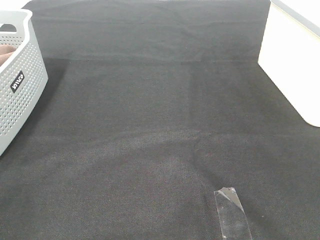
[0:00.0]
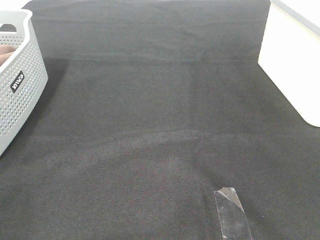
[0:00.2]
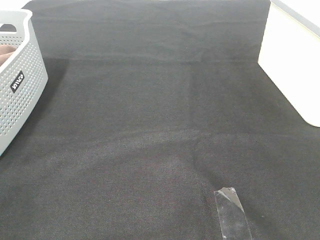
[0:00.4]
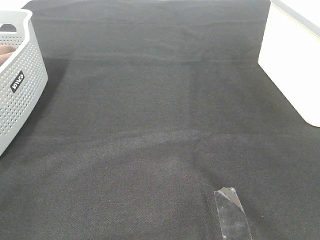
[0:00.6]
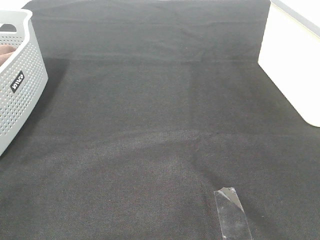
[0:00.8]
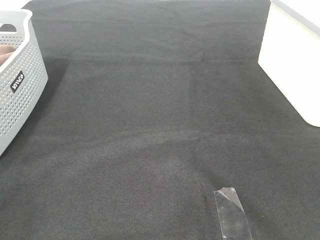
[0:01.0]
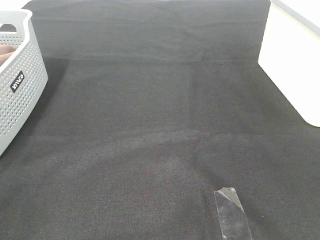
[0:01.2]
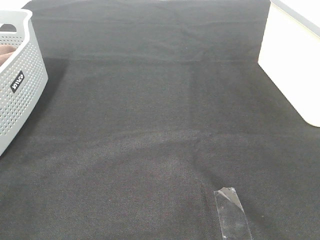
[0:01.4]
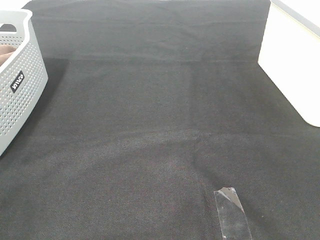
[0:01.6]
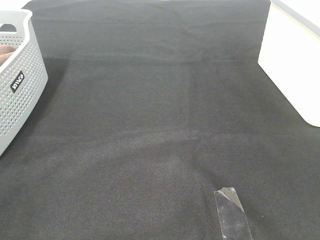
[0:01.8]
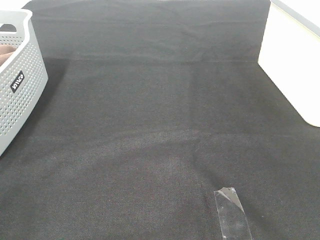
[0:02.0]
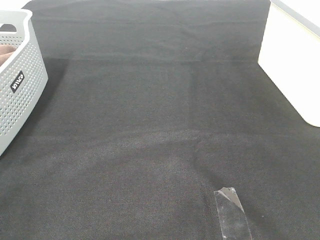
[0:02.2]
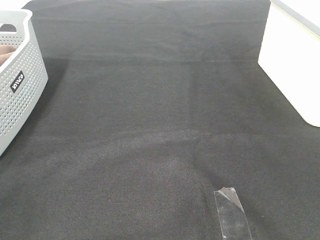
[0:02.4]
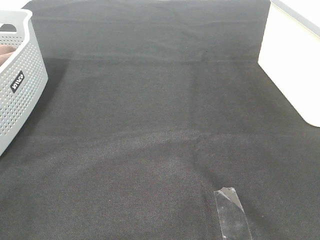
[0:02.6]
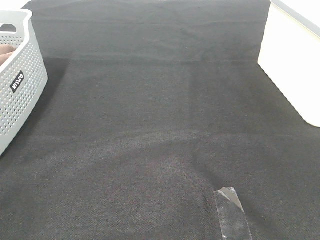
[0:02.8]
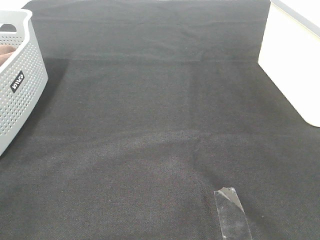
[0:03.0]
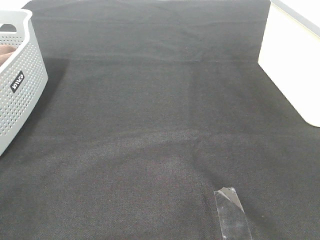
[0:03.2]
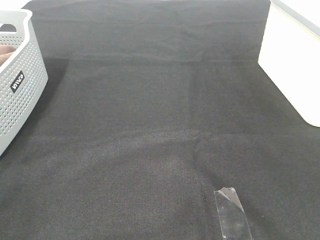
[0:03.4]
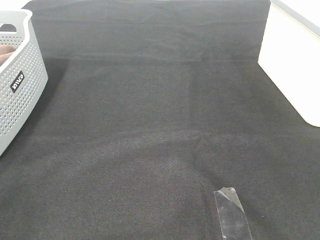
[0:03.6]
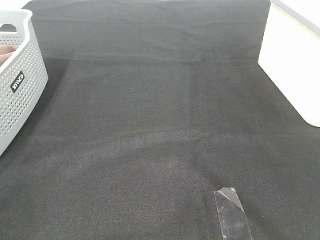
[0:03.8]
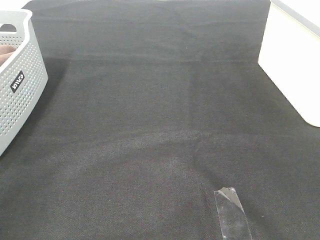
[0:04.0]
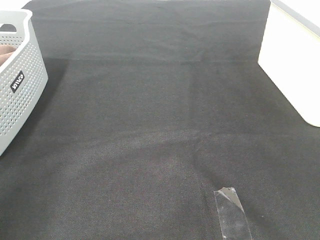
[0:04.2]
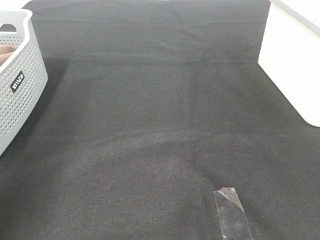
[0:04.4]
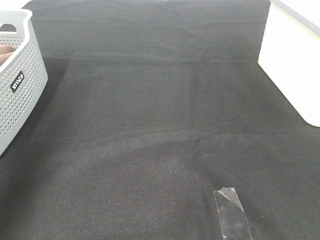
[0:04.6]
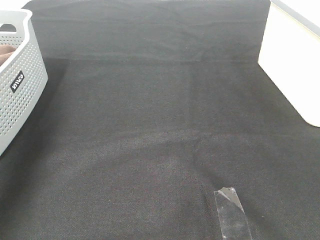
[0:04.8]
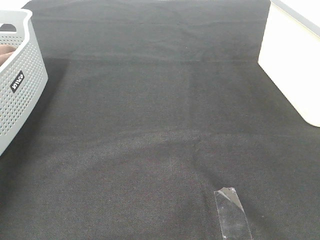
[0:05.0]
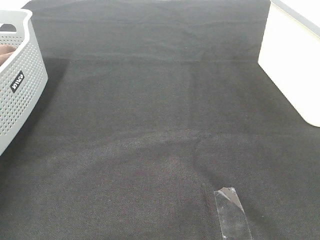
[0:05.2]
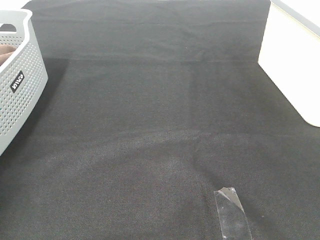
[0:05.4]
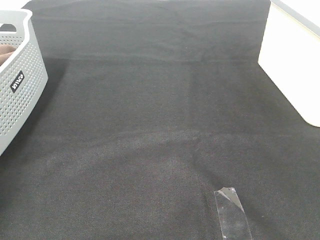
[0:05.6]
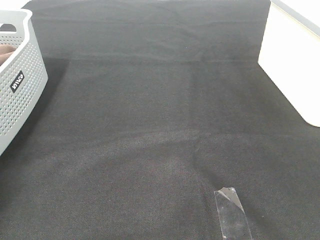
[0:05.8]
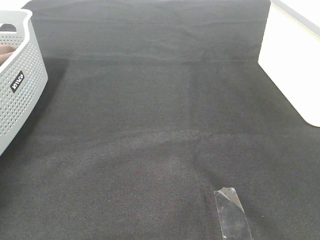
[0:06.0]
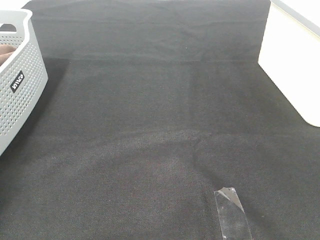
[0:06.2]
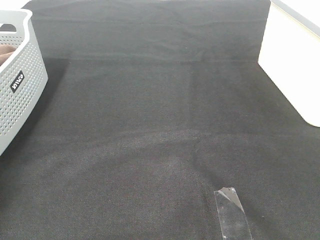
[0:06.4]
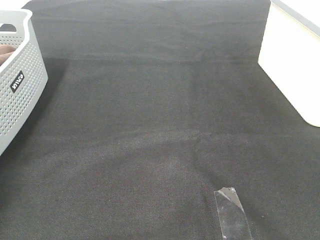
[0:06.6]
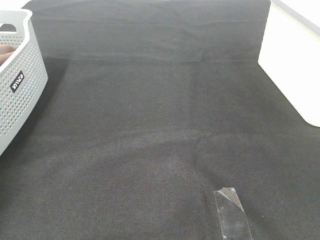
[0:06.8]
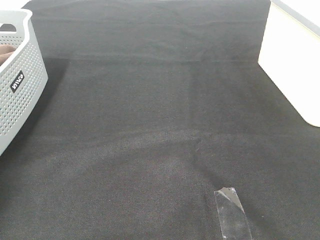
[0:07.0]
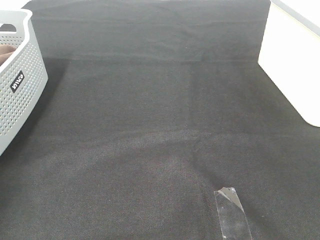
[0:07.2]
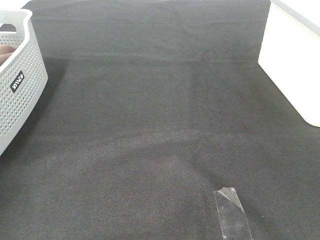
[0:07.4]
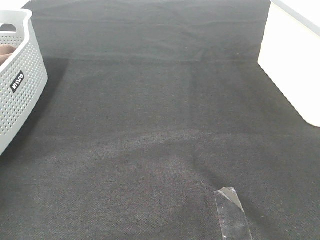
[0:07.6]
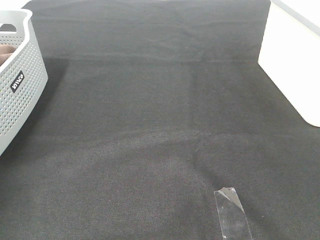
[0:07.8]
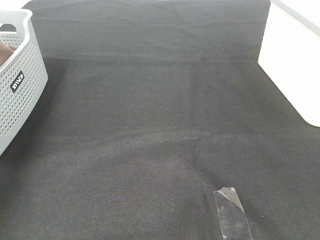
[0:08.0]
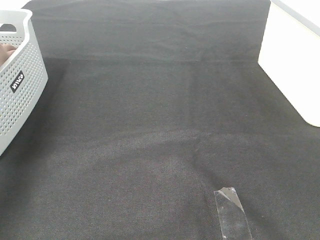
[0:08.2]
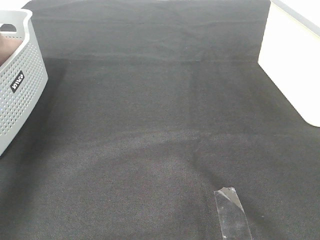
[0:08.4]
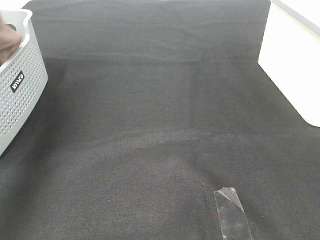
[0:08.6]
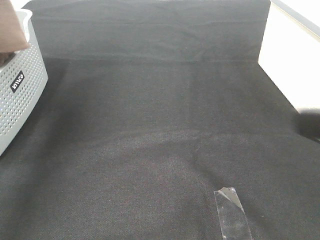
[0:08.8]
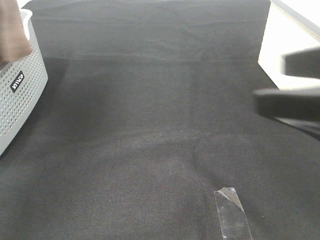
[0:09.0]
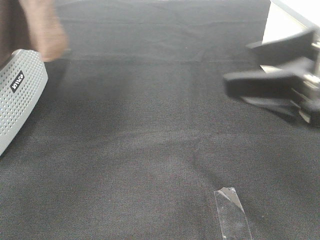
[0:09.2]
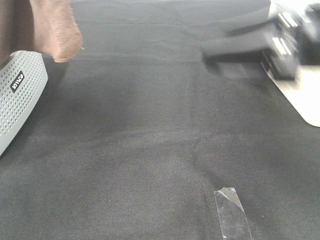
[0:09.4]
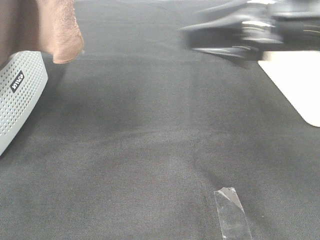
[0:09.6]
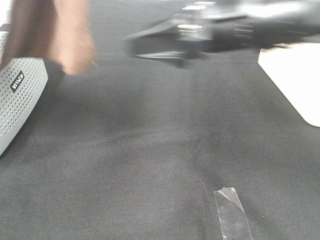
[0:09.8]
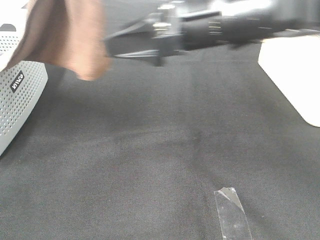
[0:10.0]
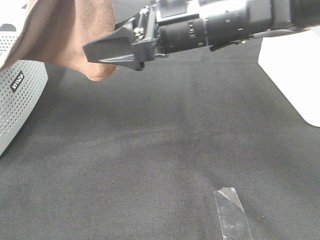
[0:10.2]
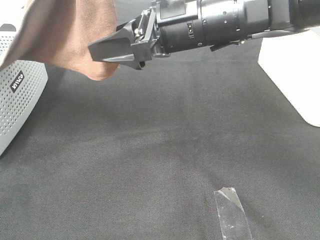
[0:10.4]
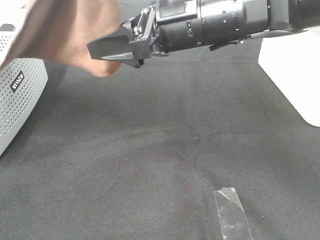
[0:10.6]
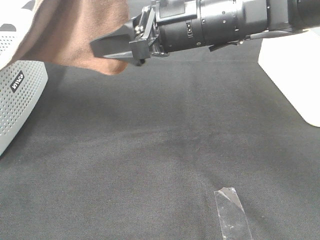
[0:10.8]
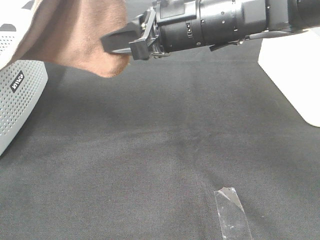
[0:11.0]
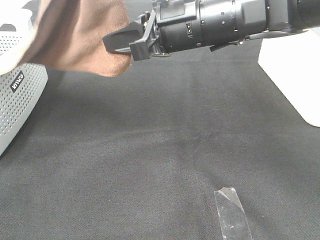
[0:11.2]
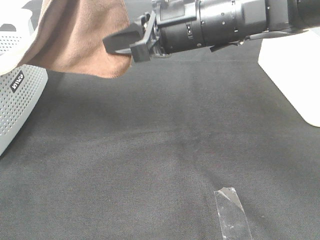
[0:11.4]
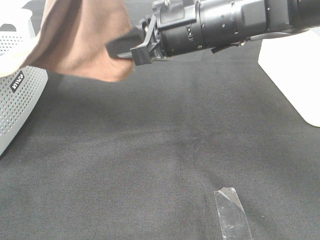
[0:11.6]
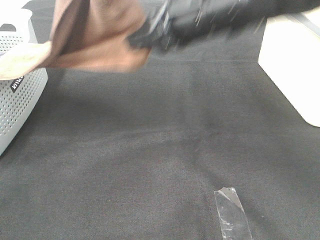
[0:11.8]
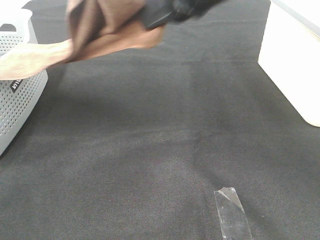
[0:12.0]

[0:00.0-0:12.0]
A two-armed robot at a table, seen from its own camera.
Task of the whole recording: Remove the towel and place it.
Step, 0:08.2 to 0:11.8: Right hand: grab a corner of the brown towel and straighten it.
0:00.0 to 0:03.0: Both grippers stay about where they are.
0:03.0 to 0:04.4: The left gripper shifts roughly 20 cm forward and upward.
0:04.4 to 0:06.0: The left gripper moves forward, downward and to the left, roughly 35 cm.
0:07.6 to 0:09.0: The right gripper shifts some 15 cm forward and to the left, while the left gripper is displaced to the right, upward and backward by roughly 25 cm.
0:09.0 to 0:10.4: The right gripper moves forward and to the left, approximately 25 cm, while the left gripper shifts approximately 10 cm to the right.
0:10.4 to 0:12.0: The right gripper is displaced upward by roughly 10 cm, and closes its fingers.

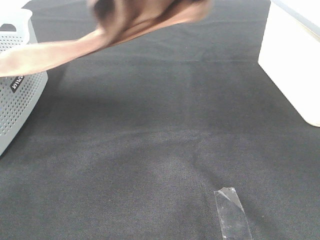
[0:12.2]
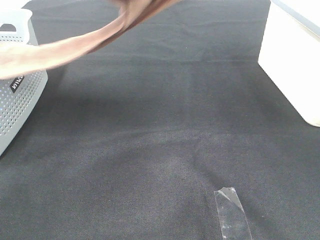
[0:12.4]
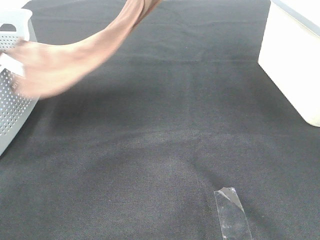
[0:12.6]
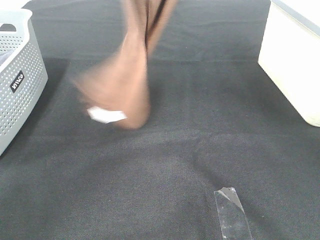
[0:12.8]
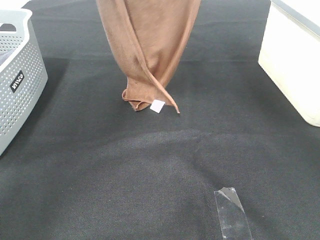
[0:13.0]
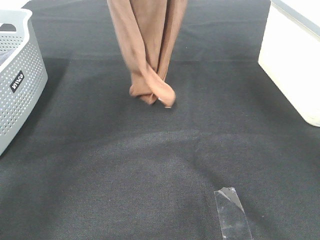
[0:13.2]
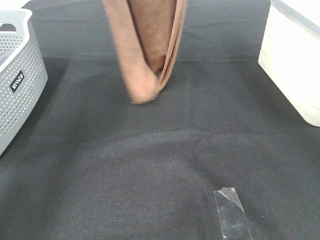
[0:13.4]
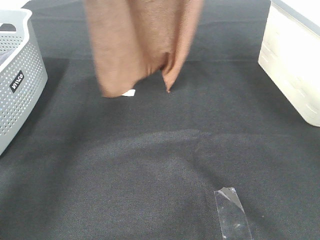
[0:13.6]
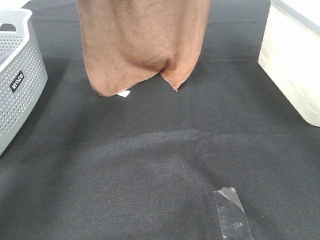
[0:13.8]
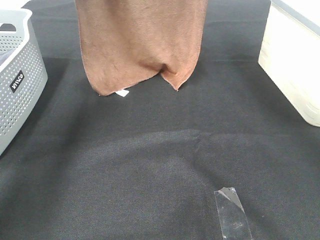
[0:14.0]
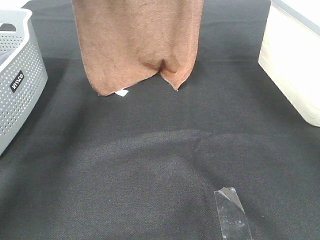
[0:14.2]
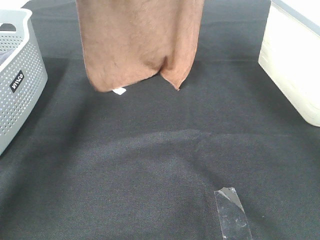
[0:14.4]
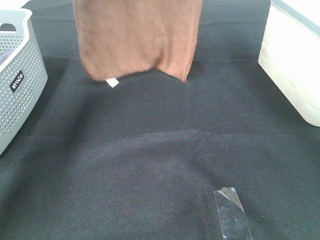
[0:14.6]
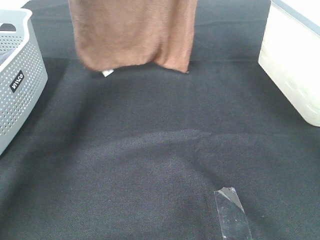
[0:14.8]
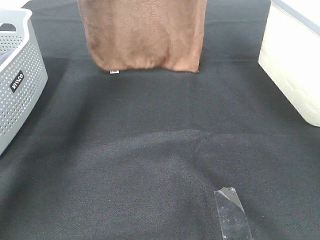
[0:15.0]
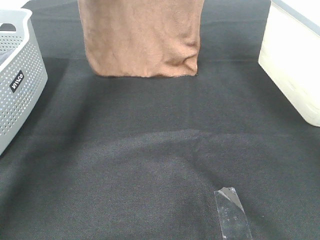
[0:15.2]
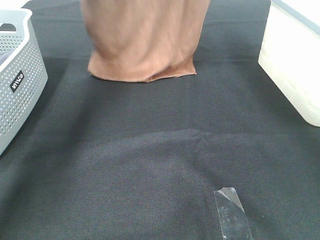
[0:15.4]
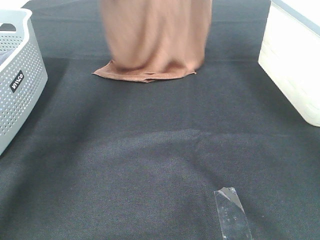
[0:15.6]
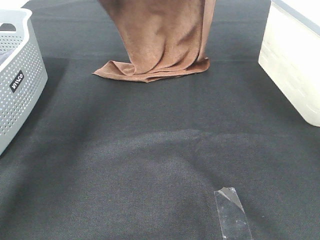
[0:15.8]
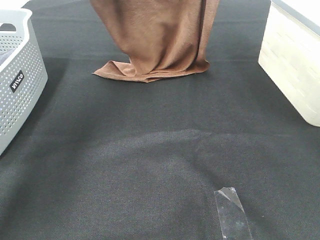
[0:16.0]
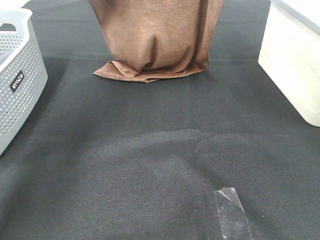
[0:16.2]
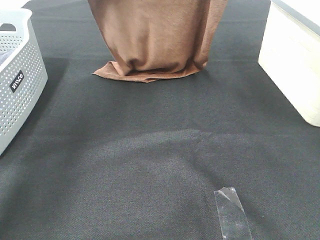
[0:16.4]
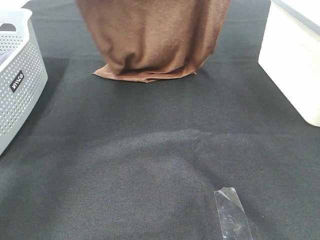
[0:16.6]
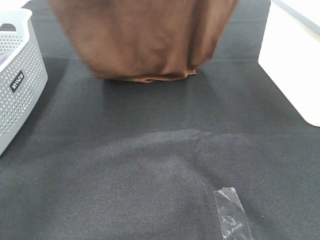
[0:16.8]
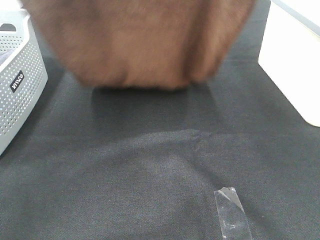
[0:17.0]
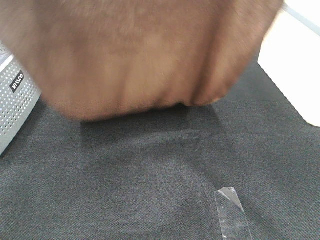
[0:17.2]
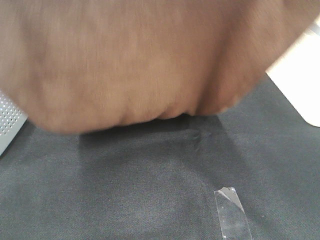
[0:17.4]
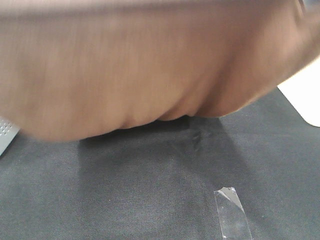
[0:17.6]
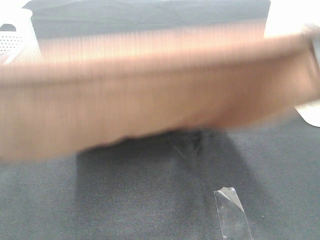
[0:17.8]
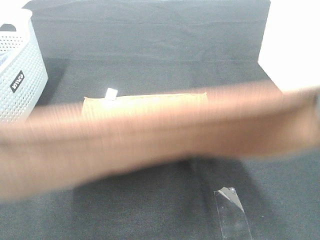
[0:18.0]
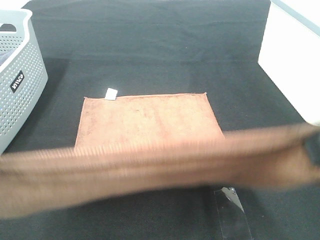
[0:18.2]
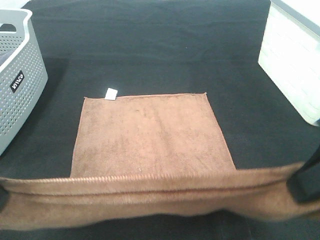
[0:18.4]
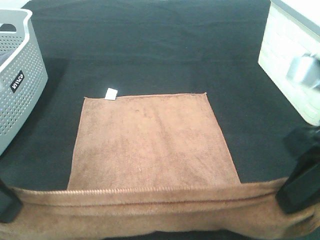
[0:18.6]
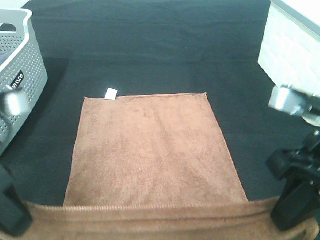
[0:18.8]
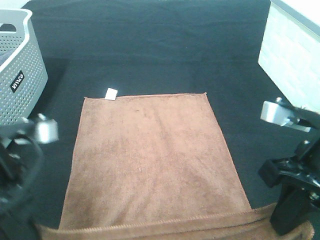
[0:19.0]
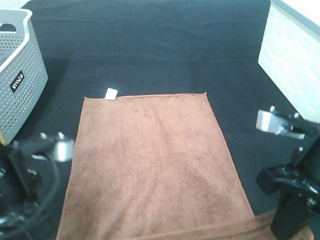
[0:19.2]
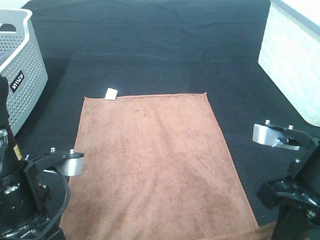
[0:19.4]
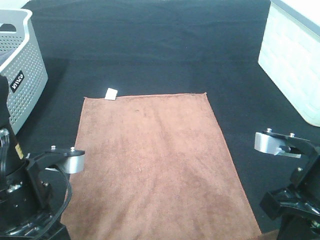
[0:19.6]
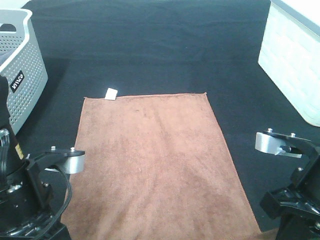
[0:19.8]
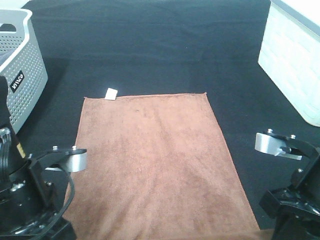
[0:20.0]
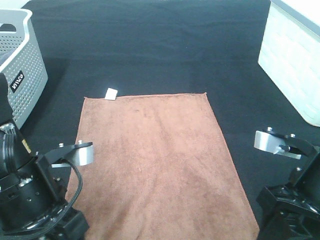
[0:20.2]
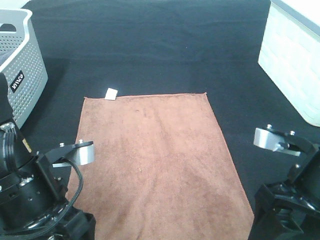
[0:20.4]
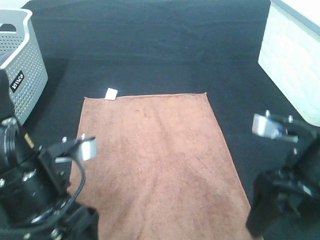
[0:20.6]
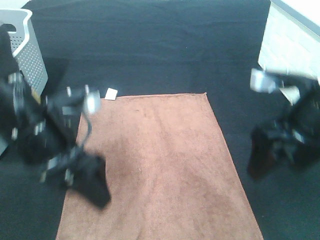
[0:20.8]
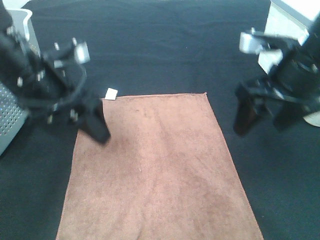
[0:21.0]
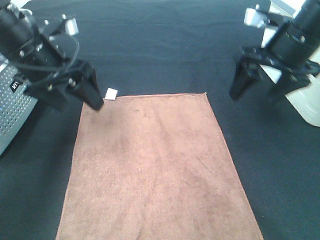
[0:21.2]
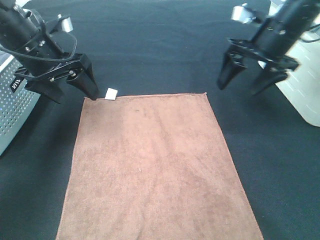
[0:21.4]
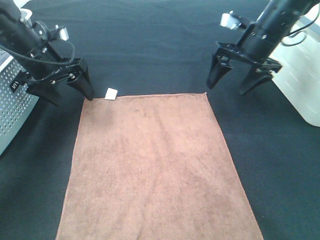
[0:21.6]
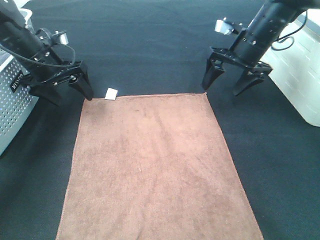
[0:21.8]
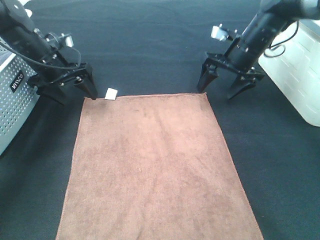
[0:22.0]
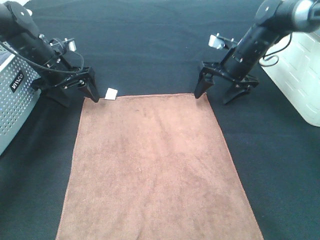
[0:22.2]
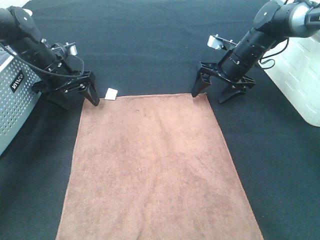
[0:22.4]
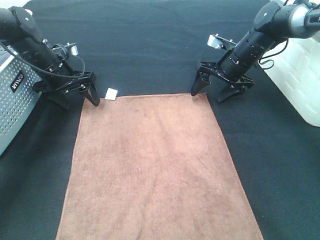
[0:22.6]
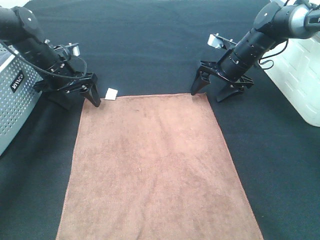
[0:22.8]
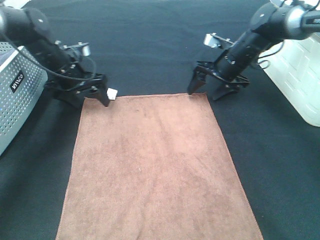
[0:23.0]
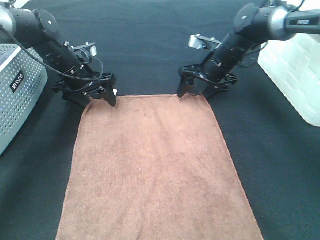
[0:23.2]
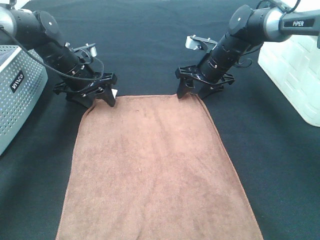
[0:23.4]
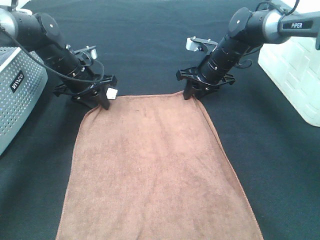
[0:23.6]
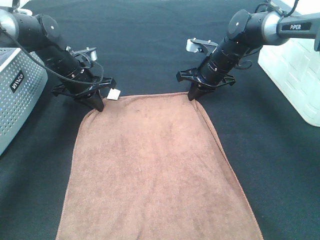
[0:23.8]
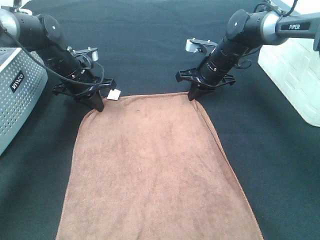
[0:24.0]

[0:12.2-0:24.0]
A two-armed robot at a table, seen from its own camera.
Task of the whole recording: Remove the towel and place it.
Step, 0:12.2 to 0:16.0: Left hand: spread the brown towel flat on the table.
Step, 0:12.2 to 0:16.0: Right hand: spread the brown towel flat on the table.
Step, 0:16.2 to 0:23.0: Right hand:adjust the brown towel.
0:12.2 to 0:13.6: The left gripper is displaced forward and to the left by roughly 15 cm; the right gripper goes about 15 cm forward and upward.
0:13.6 to 0:15.2: The right gripper shifts by approximately 5 cm. Meanwhile the left gripper moves forward, roughly 5 cm.
0:15.2 to 0:16.6: The two grippers go approximately 10 cm backward.
0:16.6 to 0:18.2: The two grippers go about 30 cm backward and downward.
0:18.2 to 0:19.6: The right gripper goes some 15 cm downward. Meanwhile the left gripper travels downward and to the right by some 15 cm.
0:19.6 to 0:21.0: The two grippers go approximately 15 cm forward and upward. The left gripper opens up; the right gripper opens its fingers.
0:21.0 to 0:22.6: The two grippers go some 25 cm forward and downward.
0:22.6 to 0:24.0: The right gripper closes its fingers. Meanwhile the left gripper closes up.
